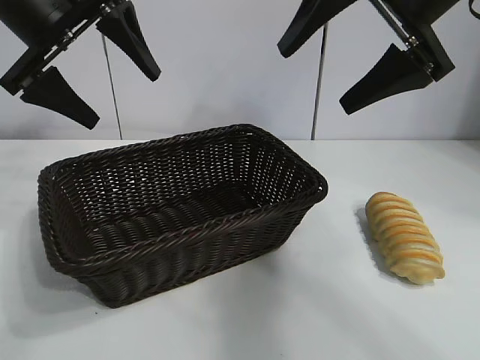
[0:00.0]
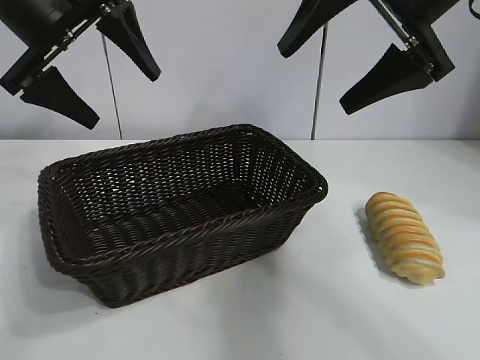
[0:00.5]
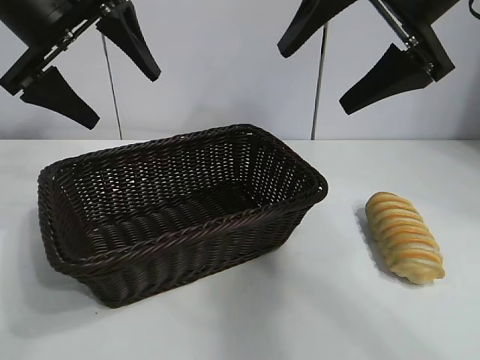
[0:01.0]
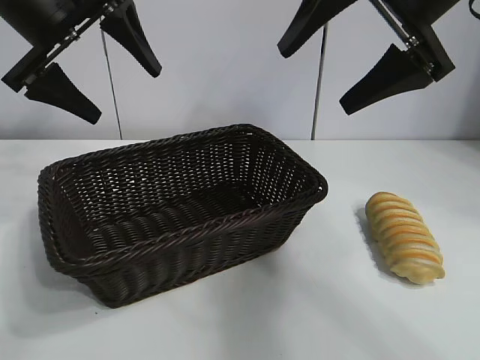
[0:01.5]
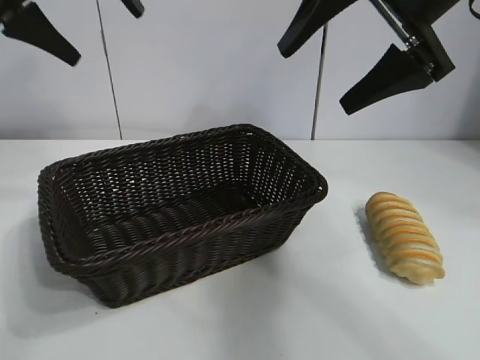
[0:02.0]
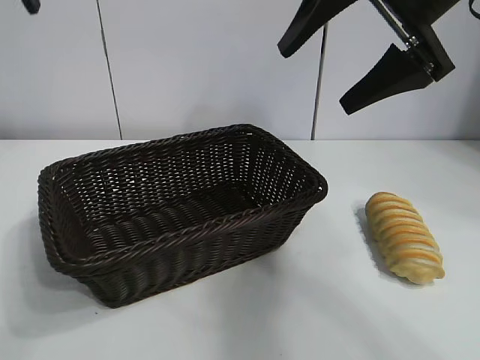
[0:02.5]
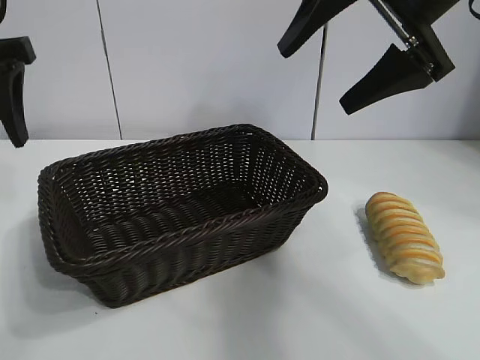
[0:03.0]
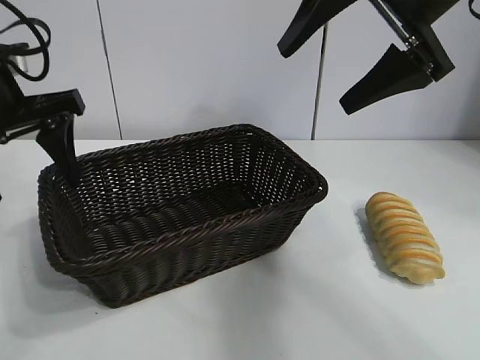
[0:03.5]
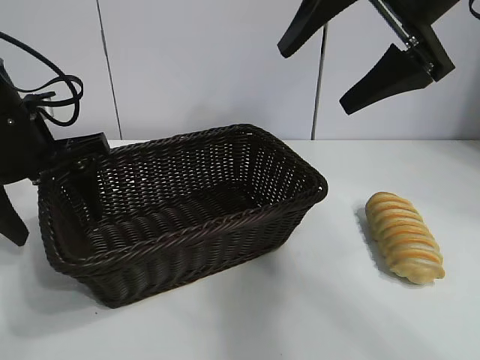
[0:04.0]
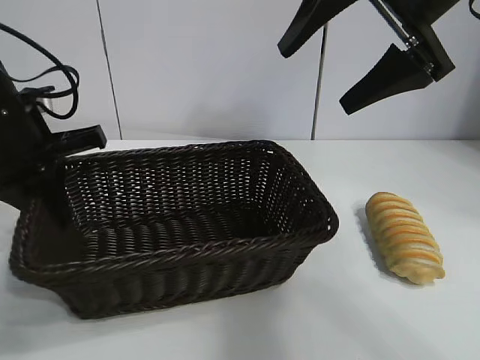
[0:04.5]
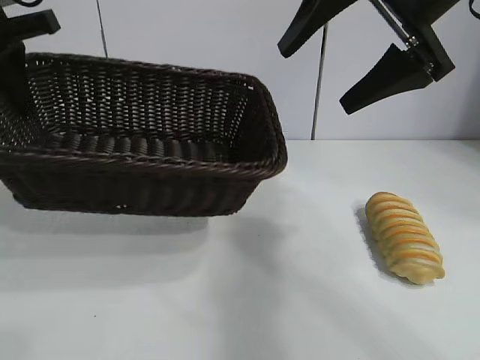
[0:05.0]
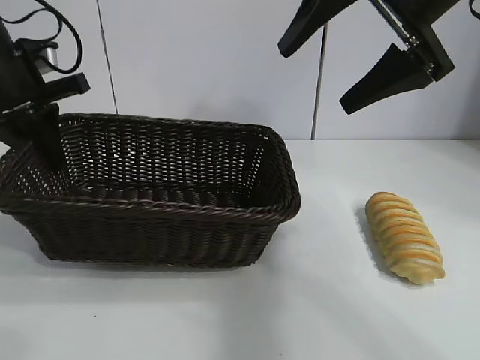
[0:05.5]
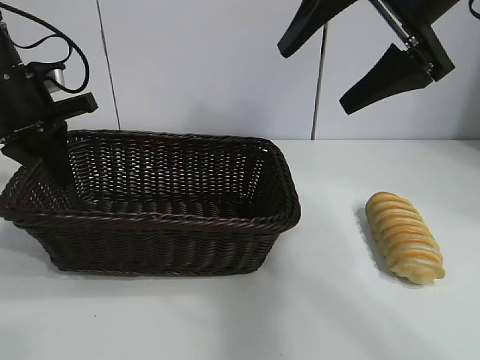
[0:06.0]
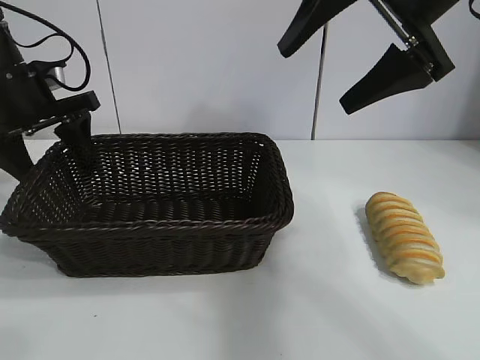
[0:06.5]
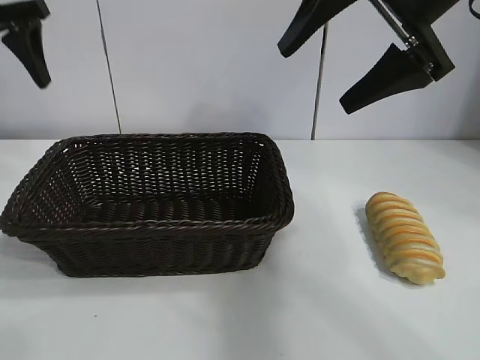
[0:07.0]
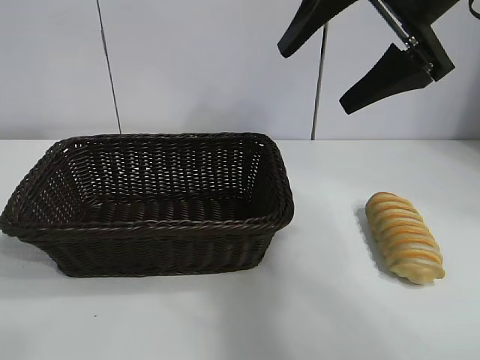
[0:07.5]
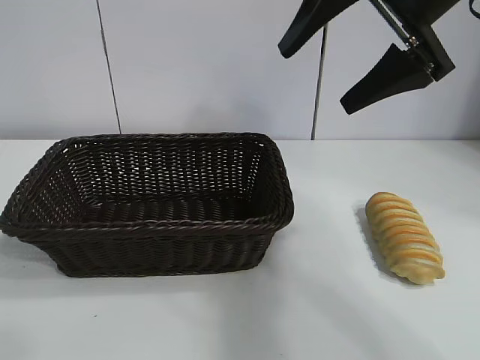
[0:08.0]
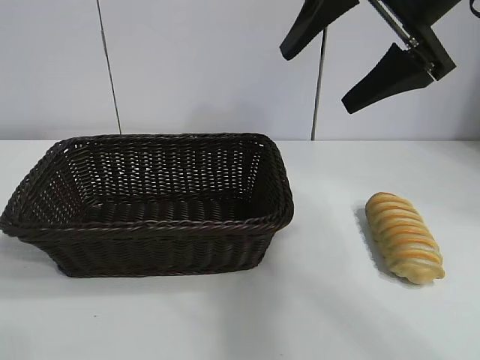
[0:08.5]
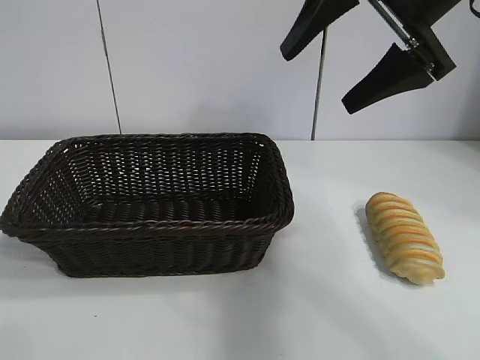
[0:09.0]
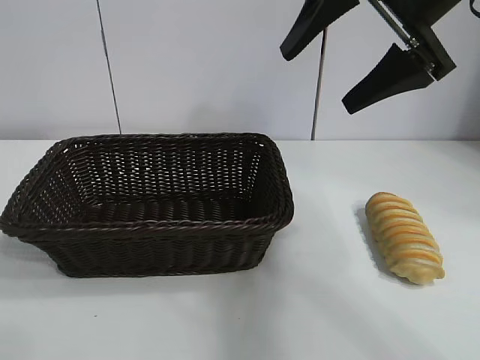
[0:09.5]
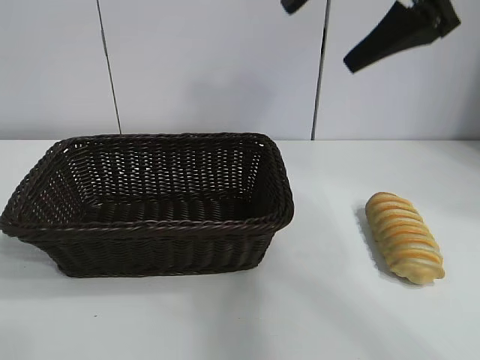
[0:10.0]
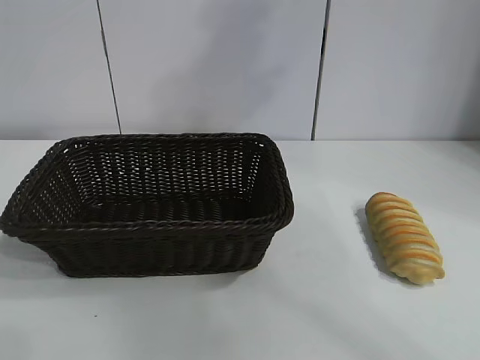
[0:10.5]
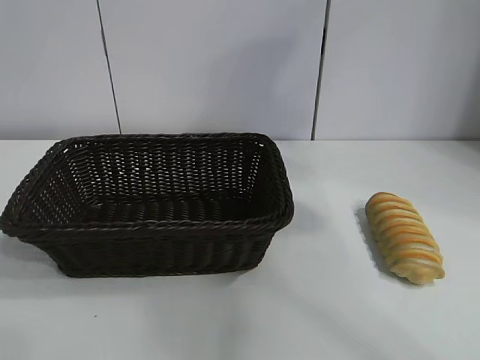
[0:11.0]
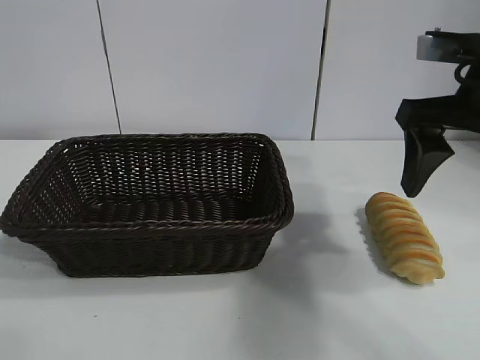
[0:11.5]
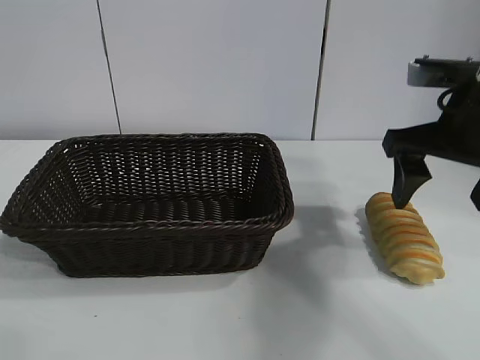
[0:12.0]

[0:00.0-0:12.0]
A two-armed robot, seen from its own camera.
Task of the whole recording: pick up the long bread and put it into the basket.
Step, 0:02.0 to 0:04.0: Grasp the basket with the left gripper.
Step, 0:04.5 to 0:06.0: Place the basket in the center of the table with the left gripper.

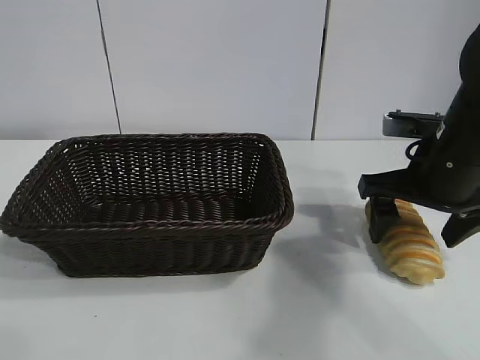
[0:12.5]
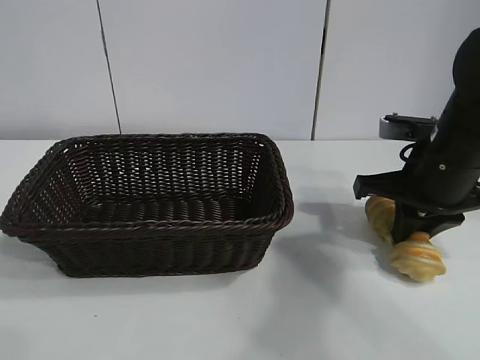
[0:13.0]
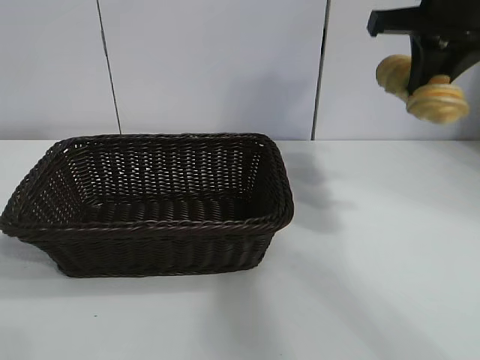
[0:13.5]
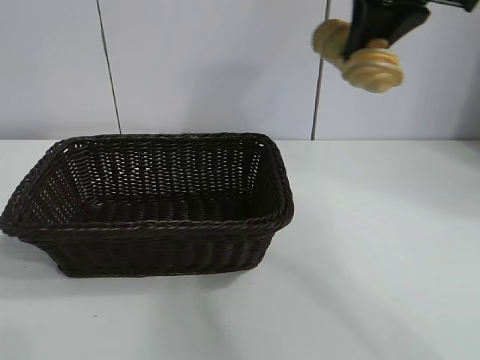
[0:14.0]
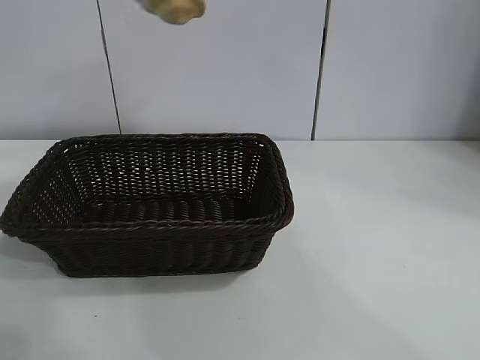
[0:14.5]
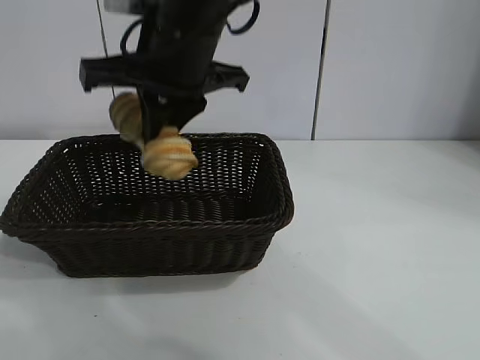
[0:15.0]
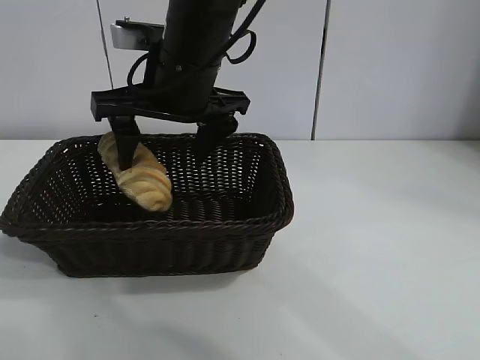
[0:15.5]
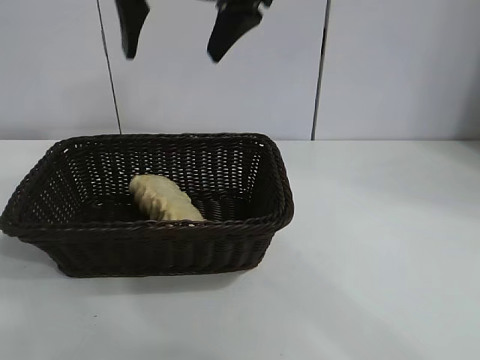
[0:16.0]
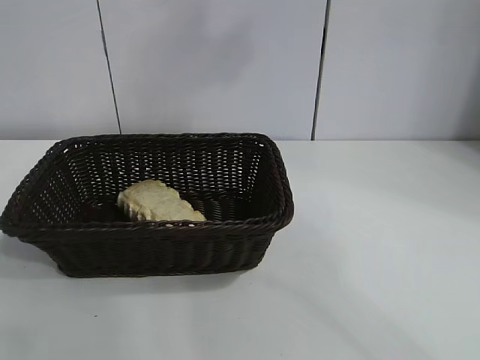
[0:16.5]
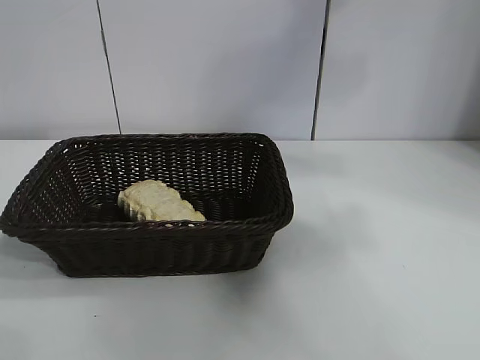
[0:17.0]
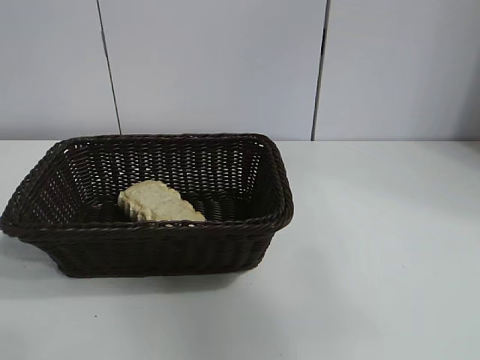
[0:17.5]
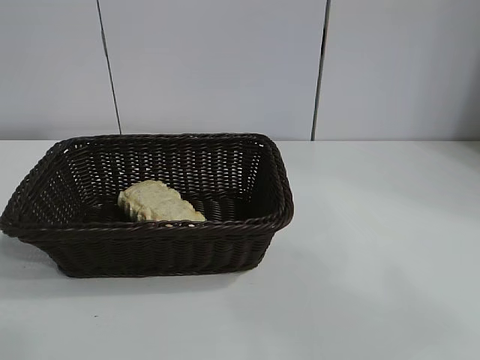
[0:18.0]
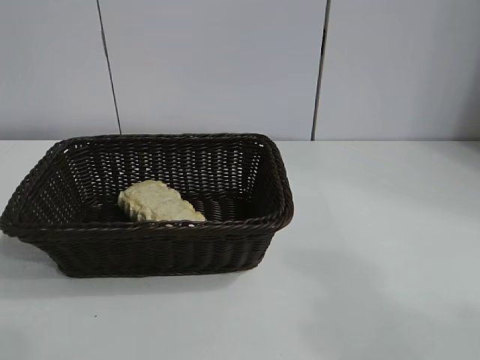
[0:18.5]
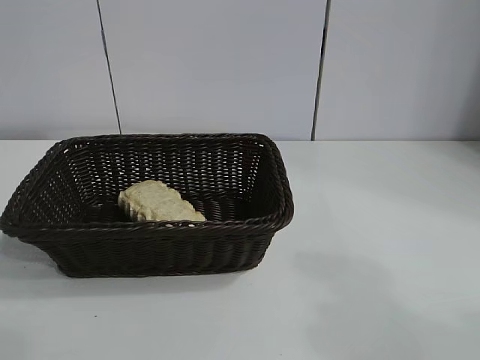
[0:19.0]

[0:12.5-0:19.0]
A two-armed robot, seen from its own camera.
Task of the whole recording: pick up the long bread and put it into the basket.
Step, 0:13.5 to 0:15.5: Place the long bread in the basket with right gripper.

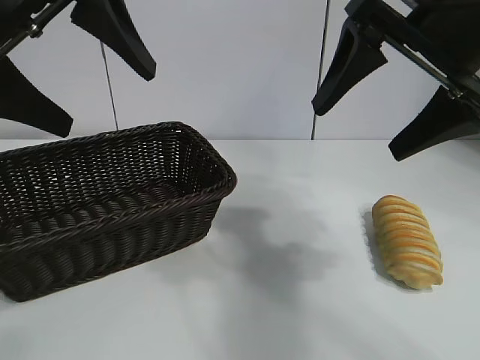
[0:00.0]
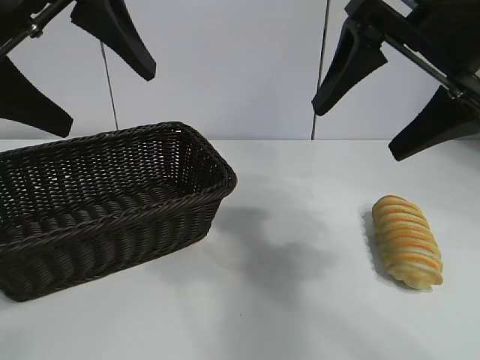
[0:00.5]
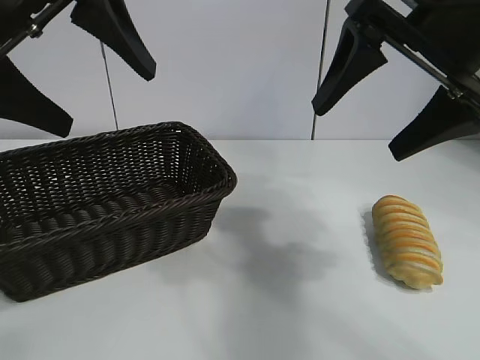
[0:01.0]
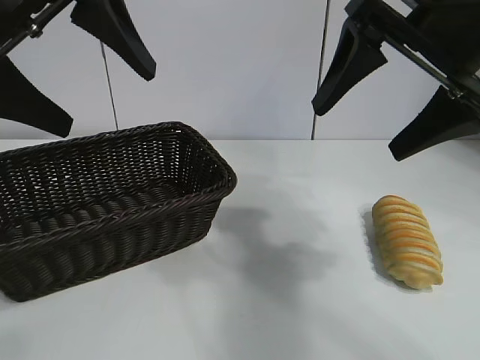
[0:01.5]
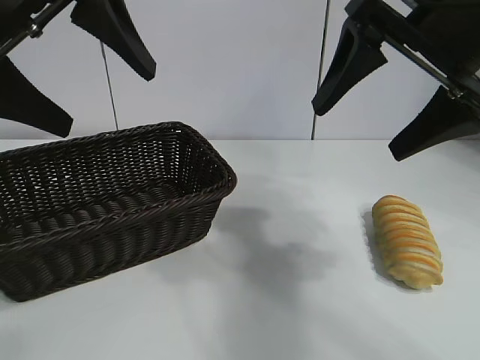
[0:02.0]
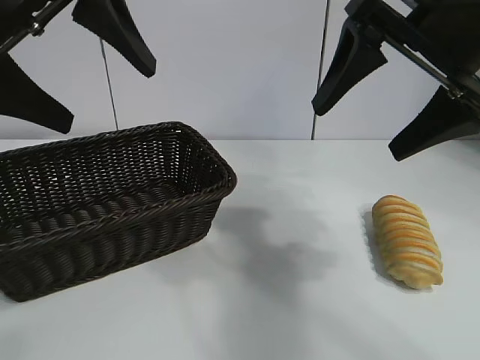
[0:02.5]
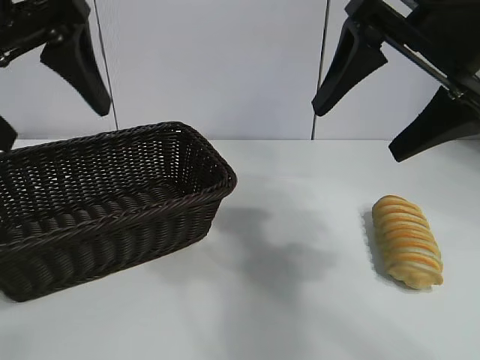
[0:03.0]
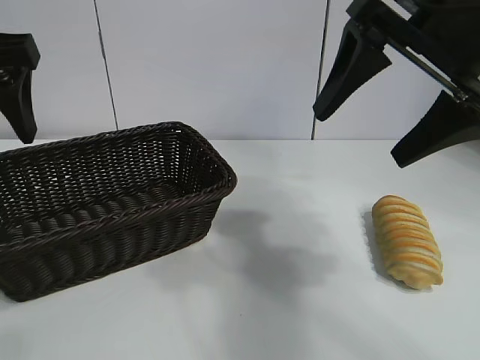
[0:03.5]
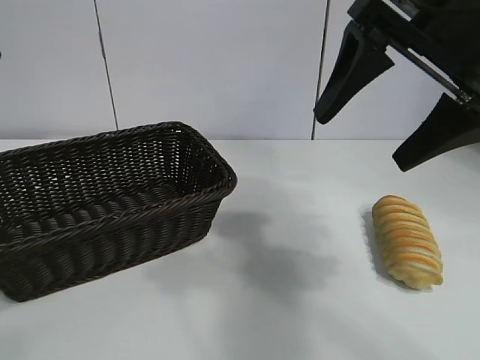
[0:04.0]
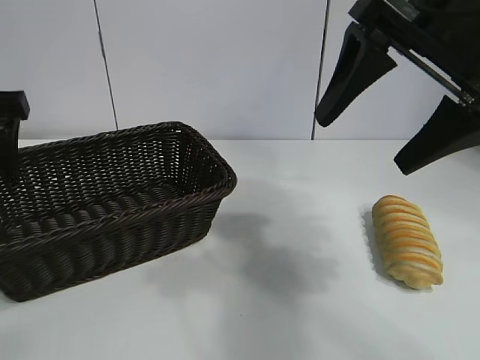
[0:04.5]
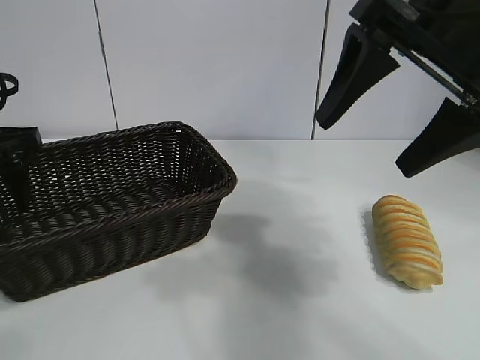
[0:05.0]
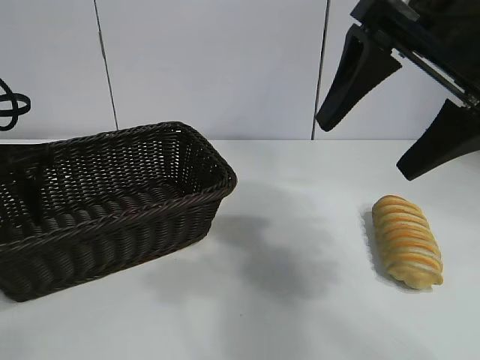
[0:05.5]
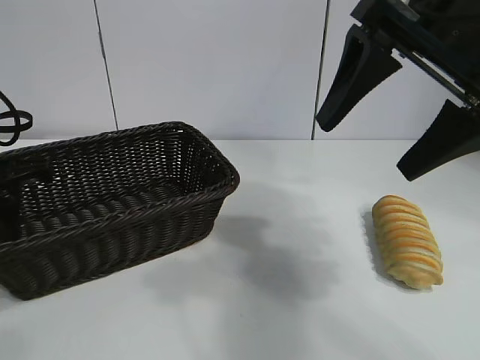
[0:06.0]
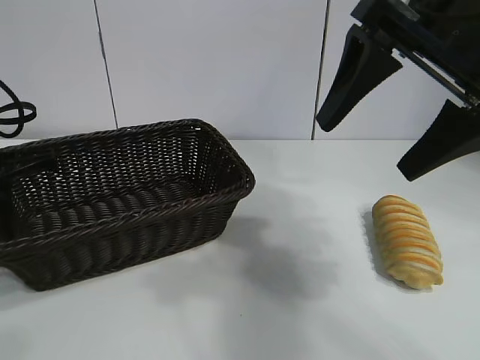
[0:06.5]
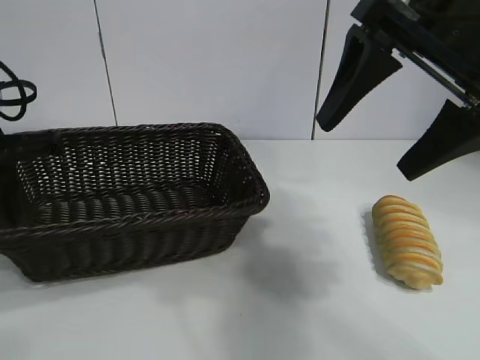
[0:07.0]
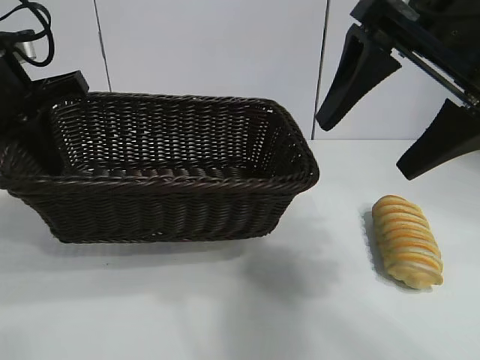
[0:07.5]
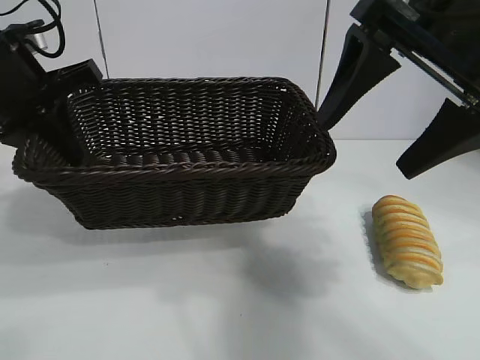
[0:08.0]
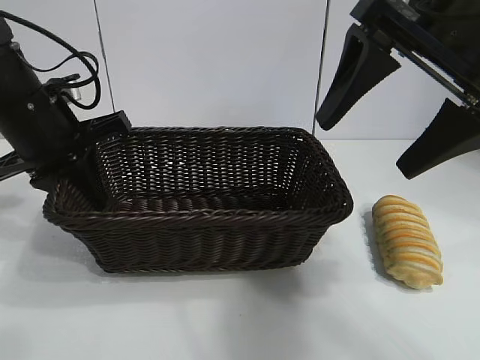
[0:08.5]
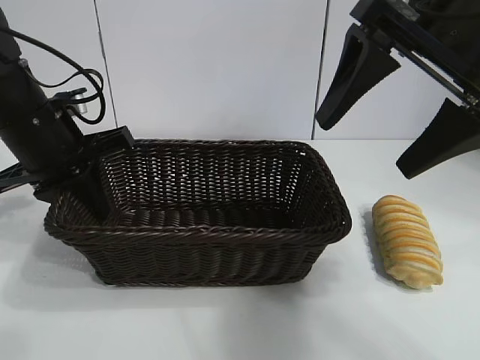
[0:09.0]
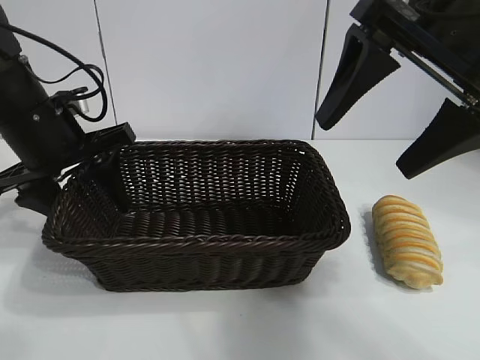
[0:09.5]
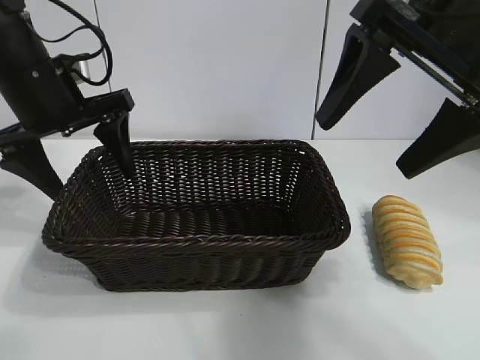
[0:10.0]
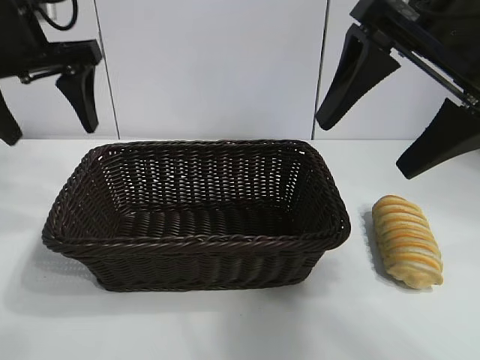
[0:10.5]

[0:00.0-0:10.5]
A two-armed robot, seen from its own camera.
Task of the whole recording: pick up the long bread and put it into the basket.
Step, 0:03.0 to 0:06.5: Grasp the basket with the left gripper.
Step, 0:07.0 to 0:09.5: Place the basket in the center of the table with the left gripper.
